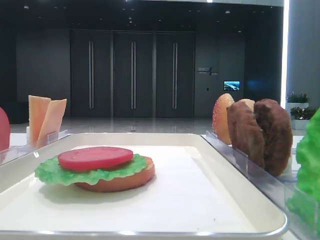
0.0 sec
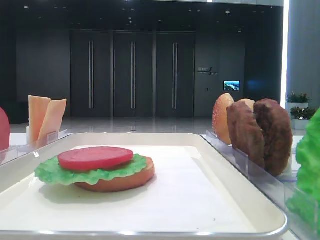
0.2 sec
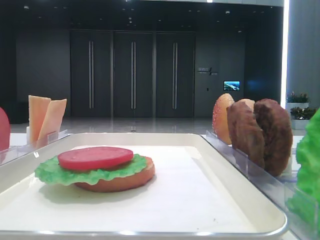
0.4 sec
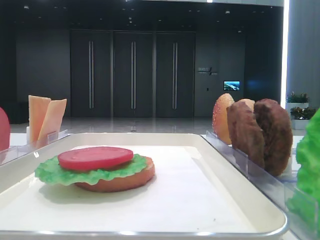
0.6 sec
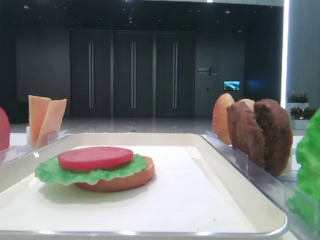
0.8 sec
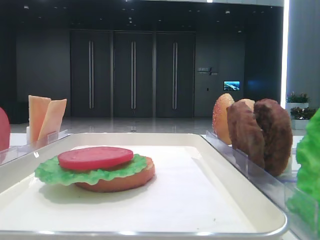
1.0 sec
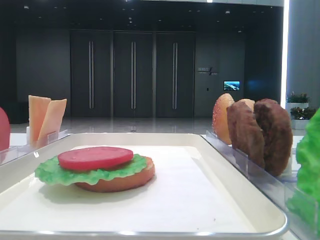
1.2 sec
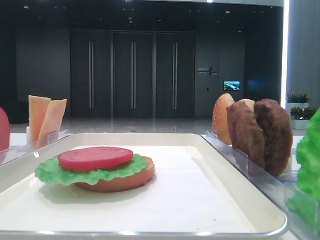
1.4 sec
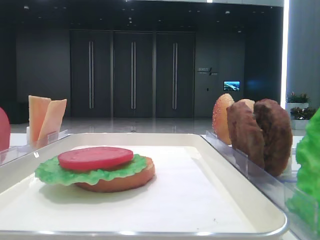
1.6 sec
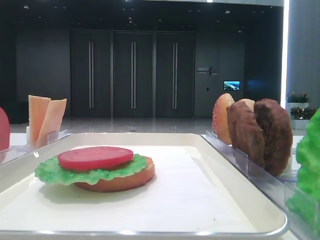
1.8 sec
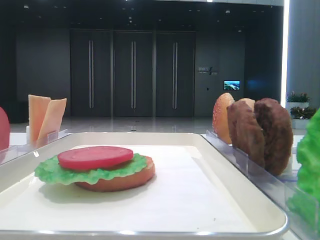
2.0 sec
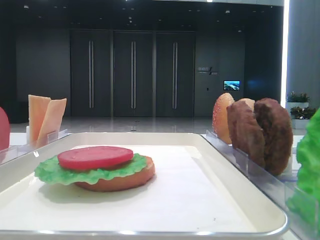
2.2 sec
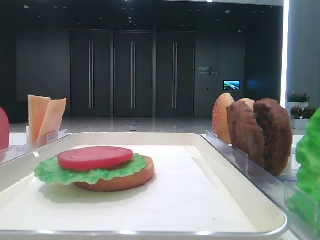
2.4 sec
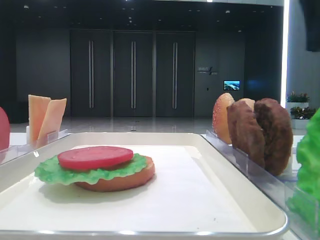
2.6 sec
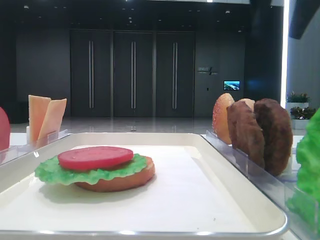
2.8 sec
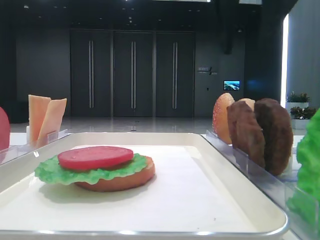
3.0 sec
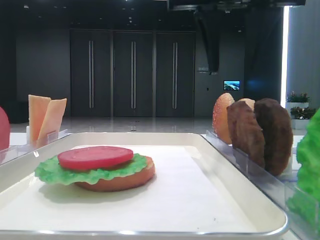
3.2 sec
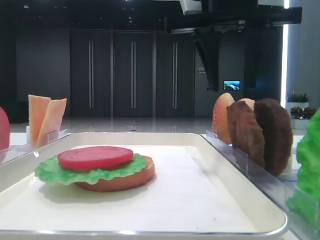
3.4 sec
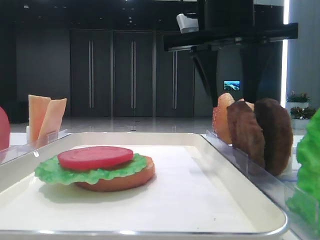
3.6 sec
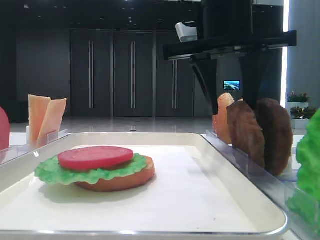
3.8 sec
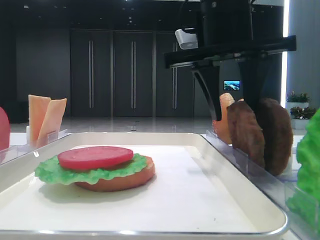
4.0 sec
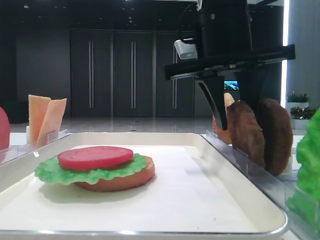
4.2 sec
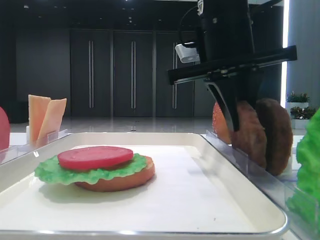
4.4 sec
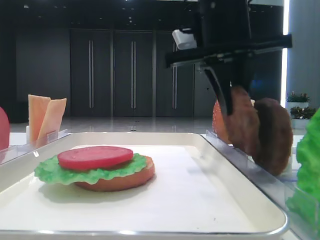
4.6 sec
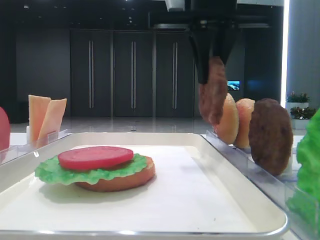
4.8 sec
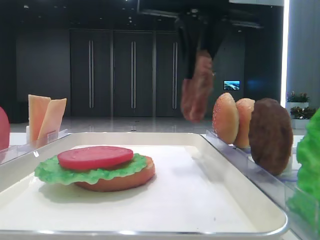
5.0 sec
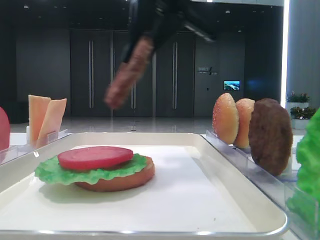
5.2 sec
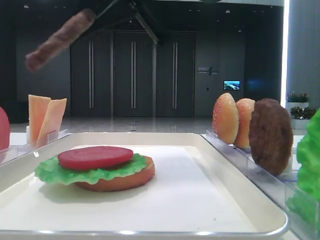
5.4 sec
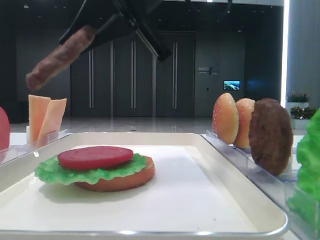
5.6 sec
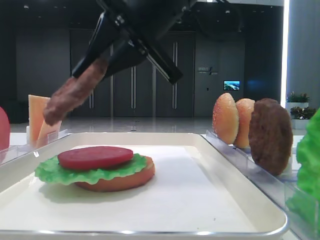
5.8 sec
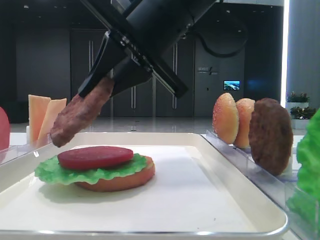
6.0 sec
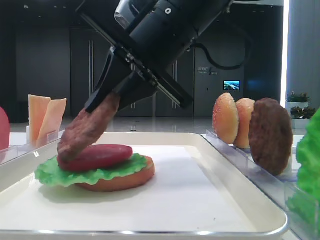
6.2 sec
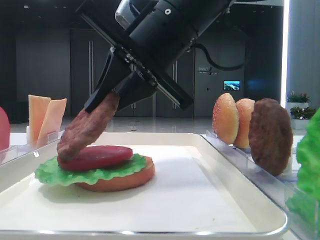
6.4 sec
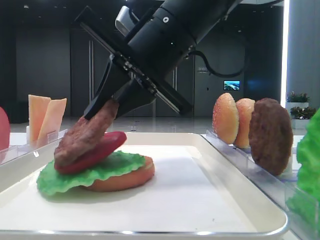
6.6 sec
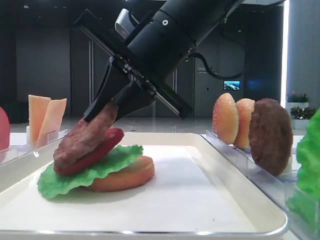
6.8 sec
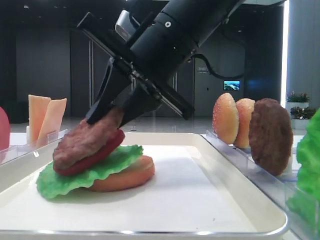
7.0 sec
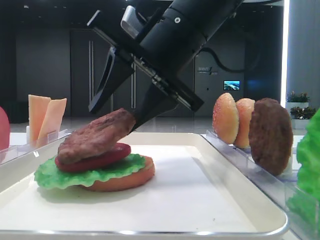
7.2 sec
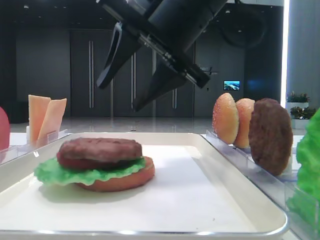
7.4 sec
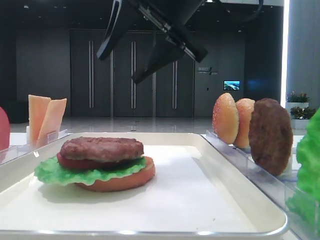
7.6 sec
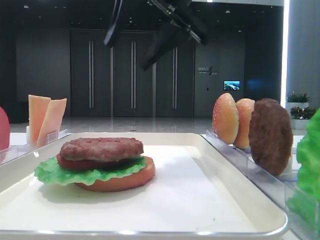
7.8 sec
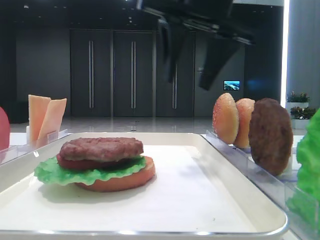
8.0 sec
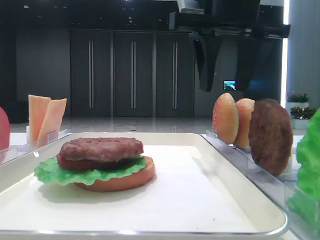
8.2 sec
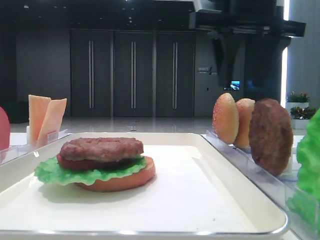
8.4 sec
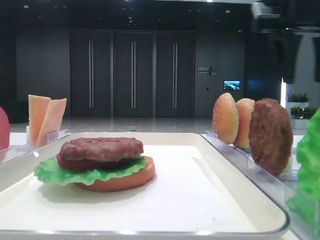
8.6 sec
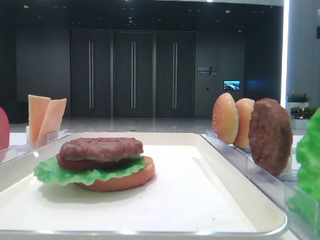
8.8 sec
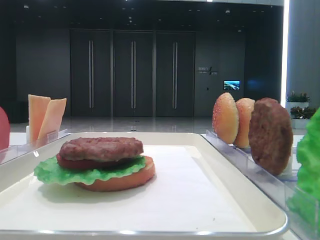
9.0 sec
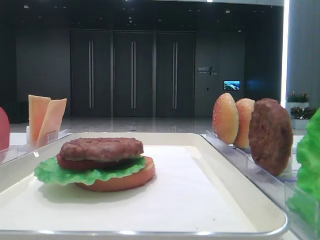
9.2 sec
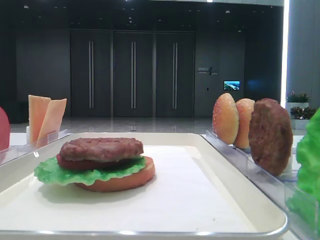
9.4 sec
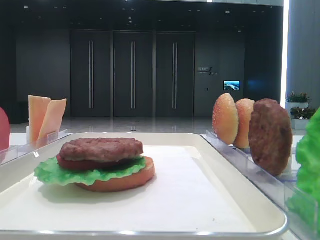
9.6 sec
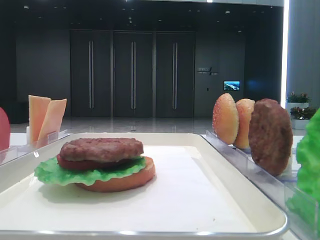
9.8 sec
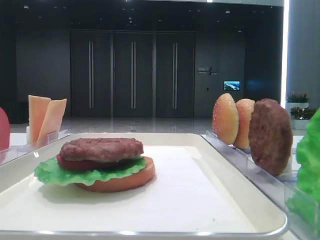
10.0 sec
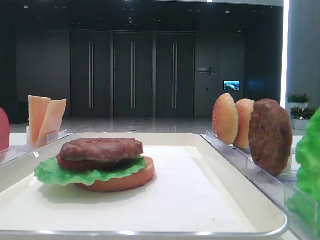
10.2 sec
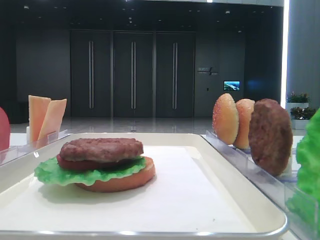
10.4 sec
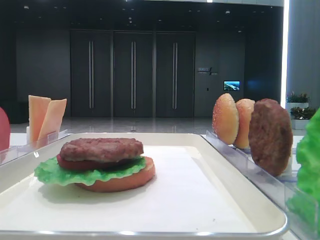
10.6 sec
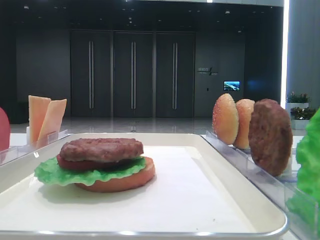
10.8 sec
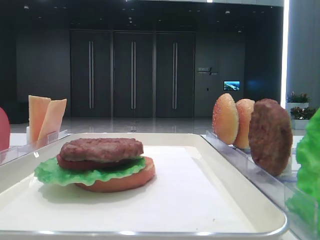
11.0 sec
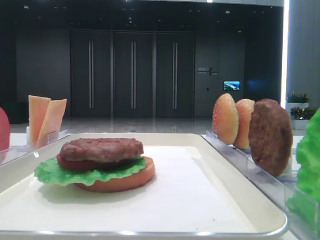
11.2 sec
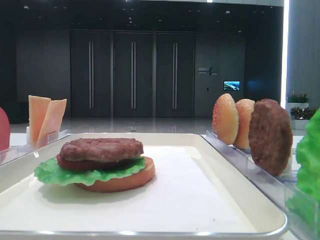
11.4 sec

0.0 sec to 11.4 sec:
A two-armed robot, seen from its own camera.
Step, 0.0 sec to 4.2 sec: Grab the patty with the right hand.
Step, 4.4 sec to 7.2 sec: Place the patty on the tomato slice with the right hand.
1.4 sec to 2.8 sec: The right gripper shifts about 30 cm forward and to the left.
2.8 sec to 4.2 sec: The right gripper goes about 15 cm downward and to the left.
4.2 sec to 5.6 sec: The right gripper shifts about 5 cm to the left, and closes its fingers.
5.6 sec to 7.2 sec: The right gripper travels downward by about 5 cm, and opens up.
7.2 sec to 8.6 sec: The right gripper moves to the right and upward, roughly 20 cm.
8.6 sec to 10.0 sec: The right gripper travels backward by approximately 30 cm.

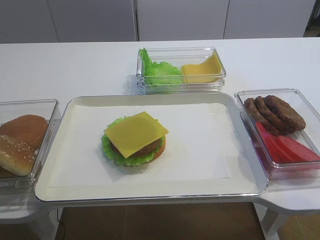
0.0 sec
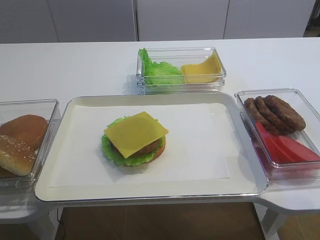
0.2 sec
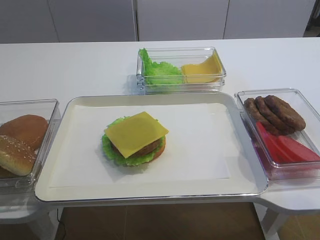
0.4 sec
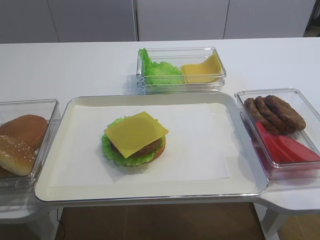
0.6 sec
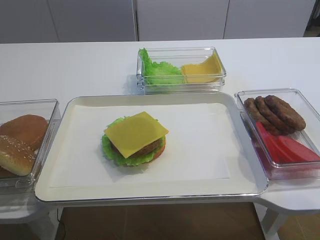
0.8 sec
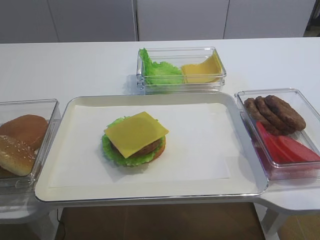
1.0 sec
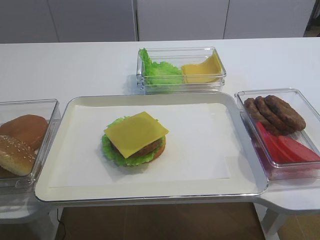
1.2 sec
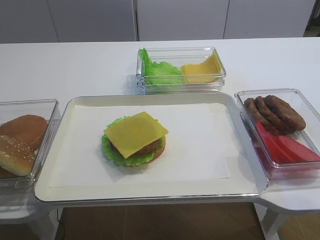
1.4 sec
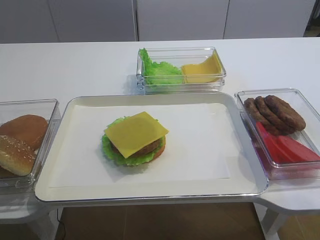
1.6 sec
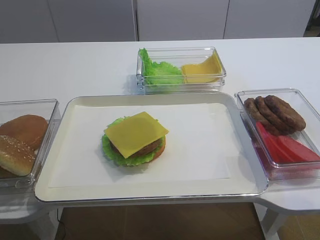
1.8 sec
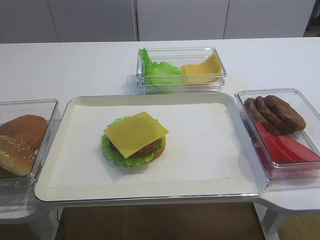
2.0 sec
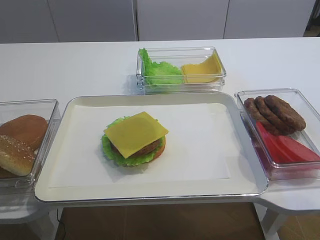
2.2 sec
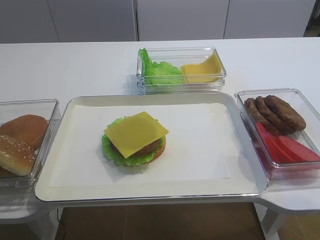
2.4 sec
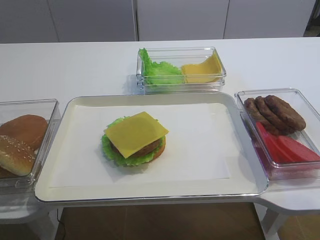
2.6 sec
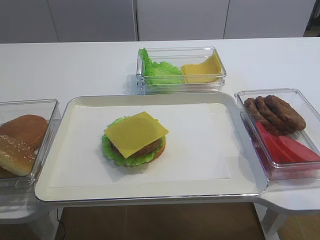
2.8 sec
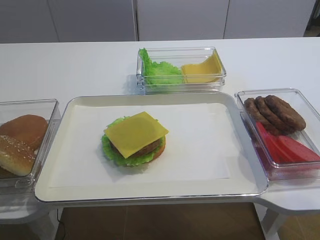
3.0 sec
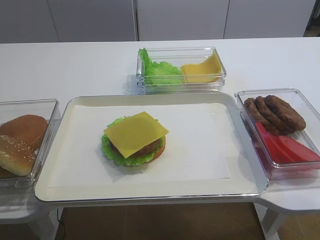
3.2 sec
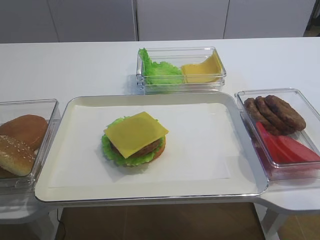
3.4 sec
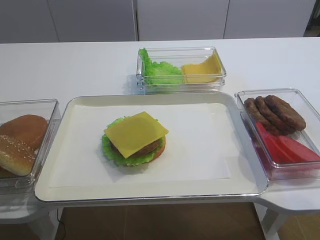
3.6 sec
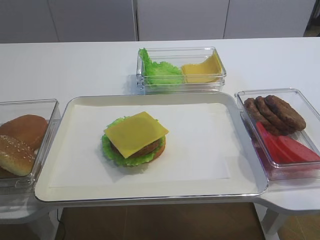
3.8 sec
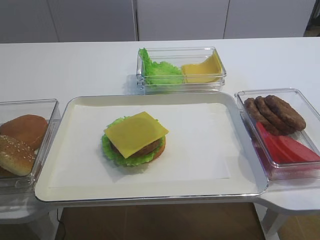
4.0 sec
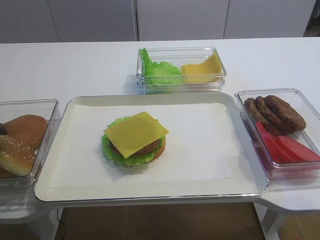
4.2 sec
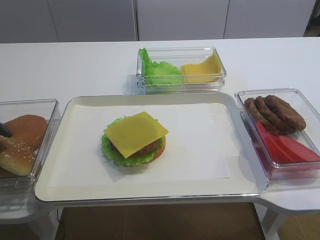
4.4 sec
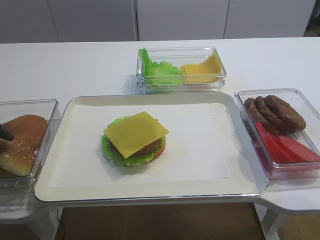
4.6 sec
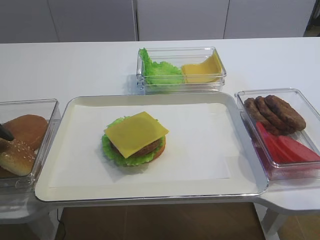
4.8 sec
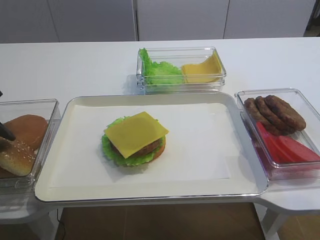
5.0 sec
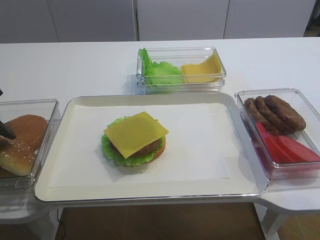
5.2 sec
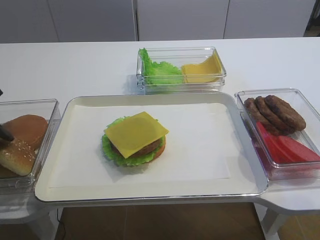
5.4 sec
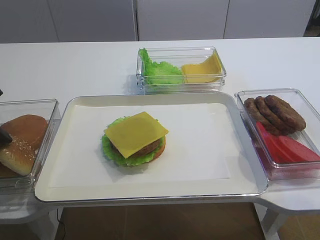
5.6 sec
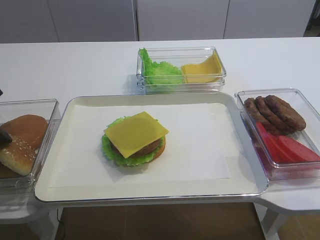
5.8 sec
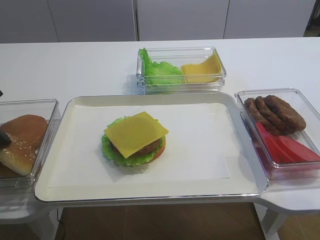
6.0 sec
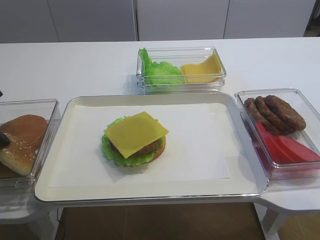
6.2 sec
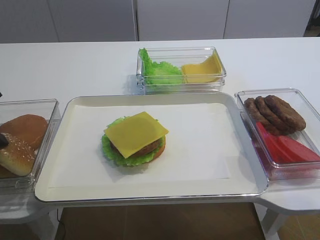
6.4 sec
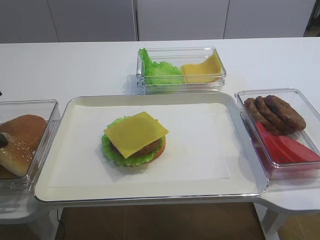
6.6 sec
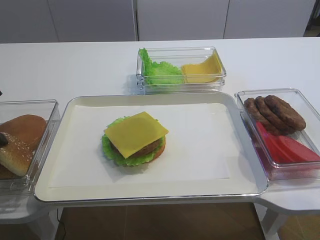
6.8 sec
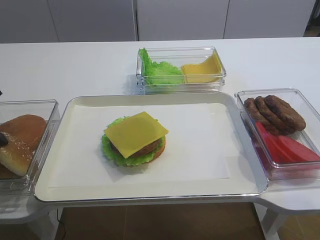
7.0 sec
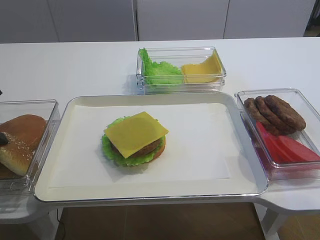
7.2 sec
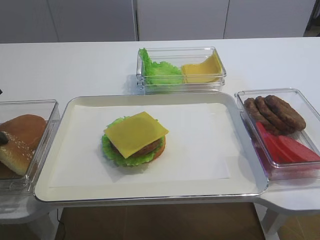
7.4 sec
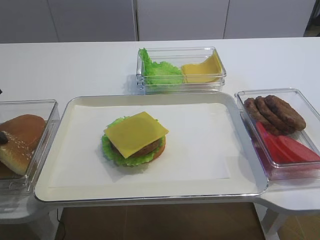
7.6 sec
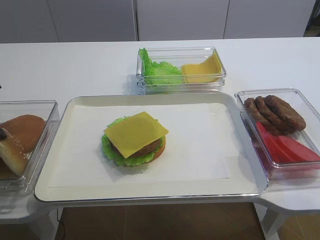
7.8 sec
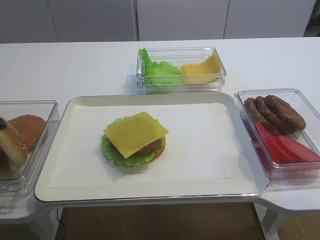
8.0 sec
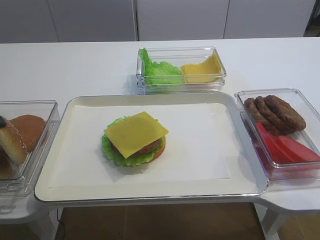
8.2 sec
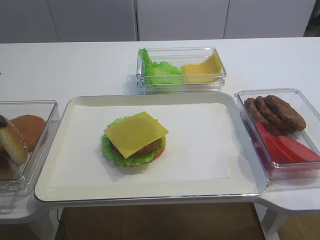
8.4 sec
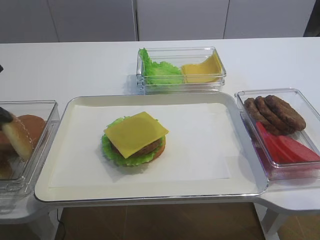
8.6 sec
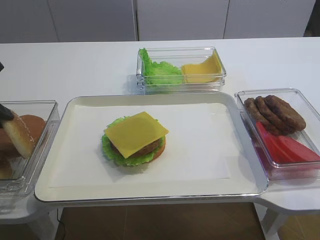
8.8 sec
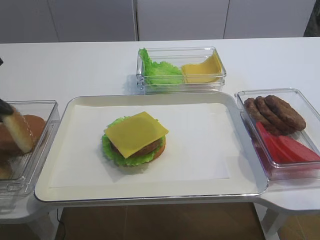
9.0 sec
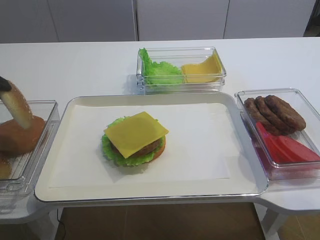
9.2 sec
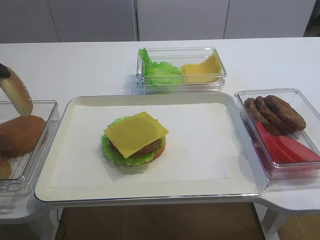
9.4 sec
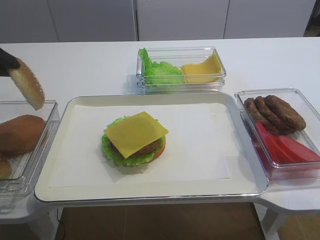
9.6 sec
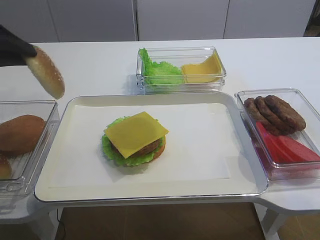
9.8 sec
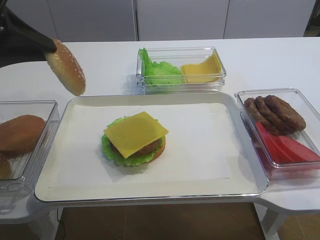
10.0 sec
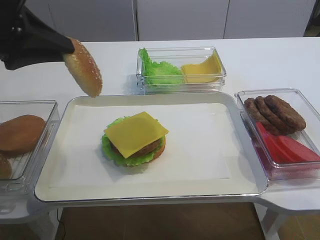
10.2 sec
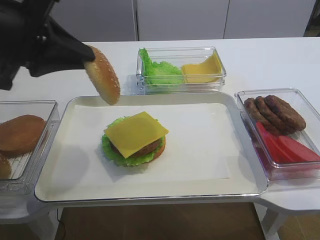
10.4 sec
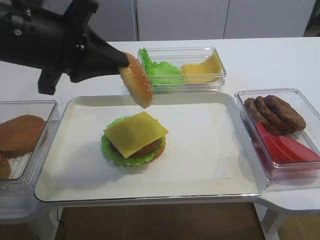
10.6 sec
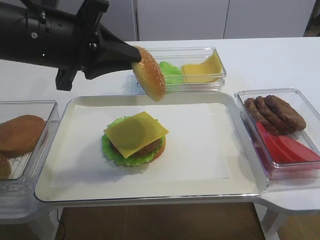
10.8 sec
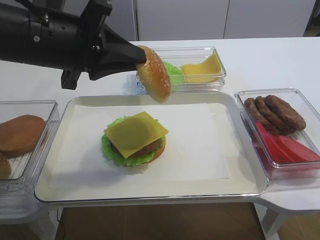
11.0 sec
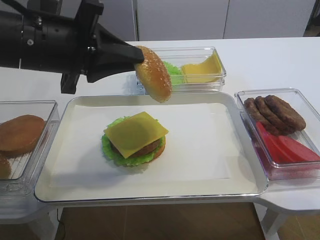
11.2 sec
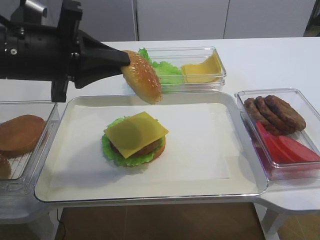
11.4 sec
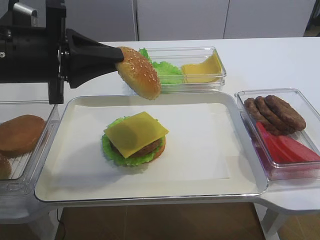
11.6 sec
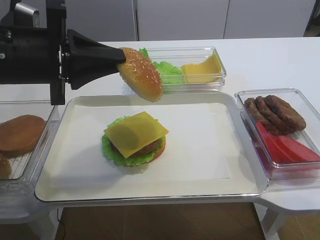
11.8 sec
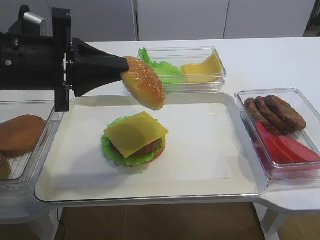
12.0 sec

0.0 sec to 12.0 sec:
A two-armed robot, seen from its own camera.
6.0 sec to 7.6 sec: Both grippers stay put.
7.6 sec to 9.0 sec: The grippers move only a little.
9.0 sec to 10.4 sec: The left gripper is displaced to the right by roughly 10 cm.
10.4 sec to 12.0 sec: The left gripper goes about 5 cm downward.
